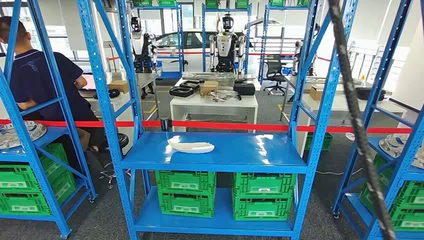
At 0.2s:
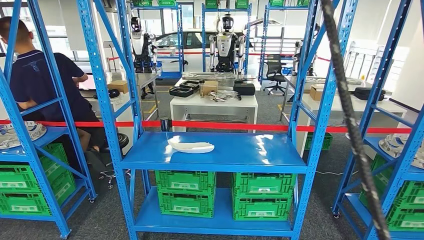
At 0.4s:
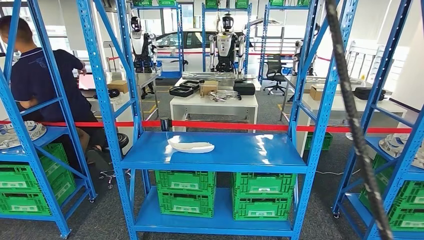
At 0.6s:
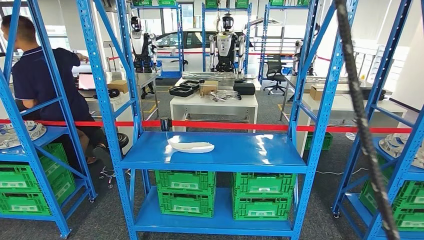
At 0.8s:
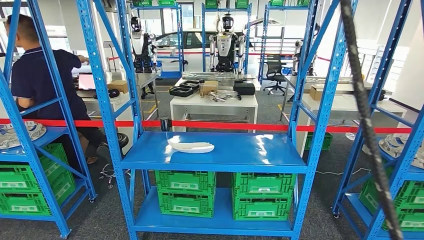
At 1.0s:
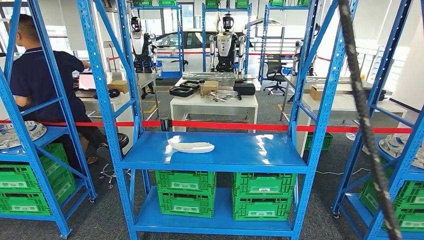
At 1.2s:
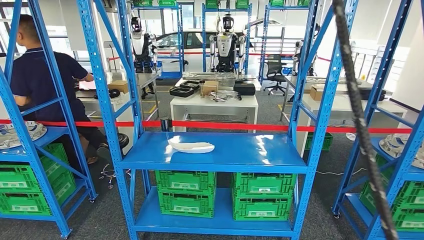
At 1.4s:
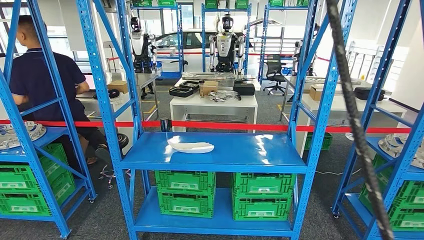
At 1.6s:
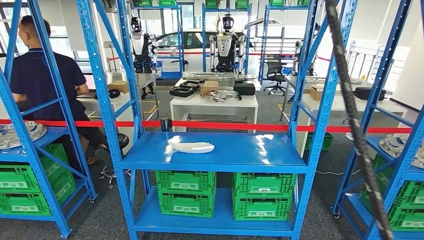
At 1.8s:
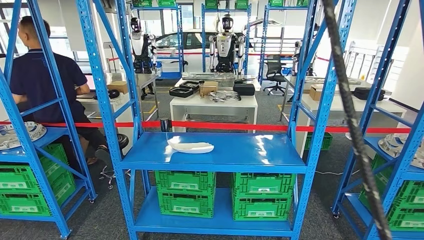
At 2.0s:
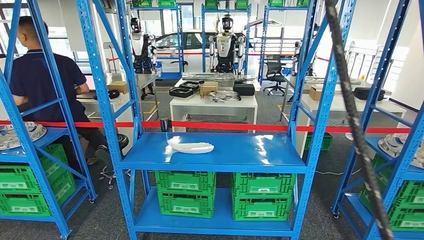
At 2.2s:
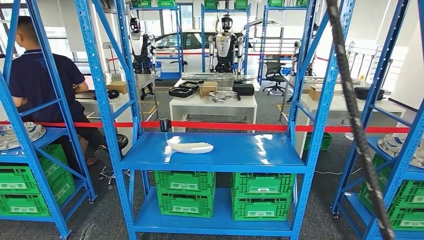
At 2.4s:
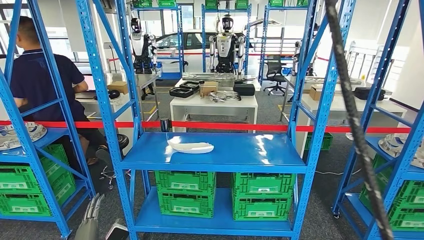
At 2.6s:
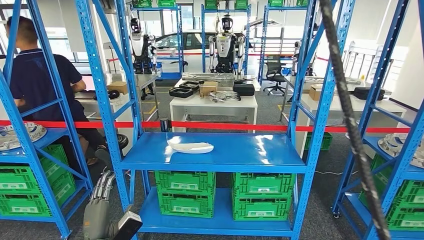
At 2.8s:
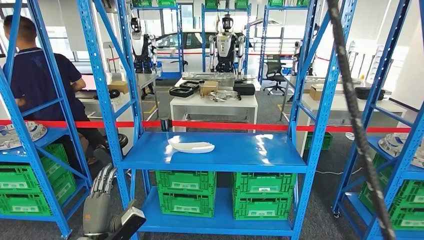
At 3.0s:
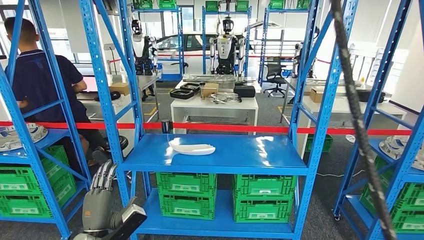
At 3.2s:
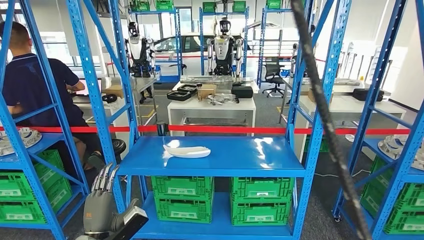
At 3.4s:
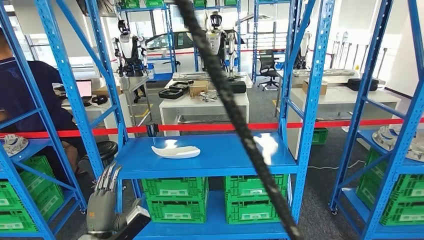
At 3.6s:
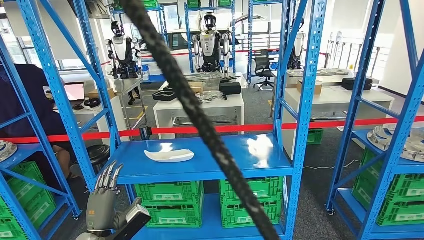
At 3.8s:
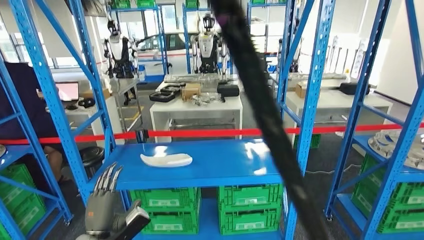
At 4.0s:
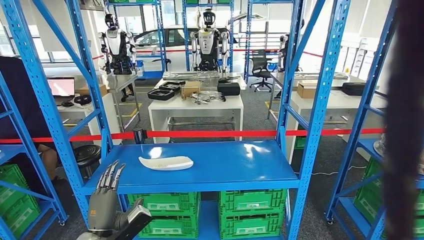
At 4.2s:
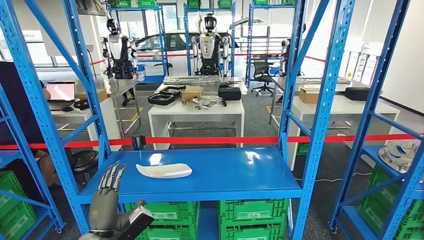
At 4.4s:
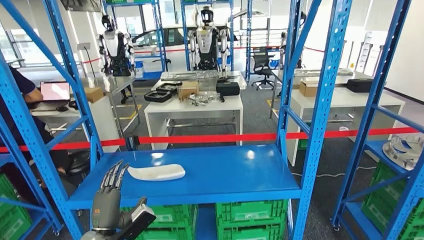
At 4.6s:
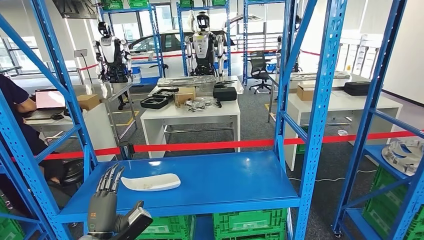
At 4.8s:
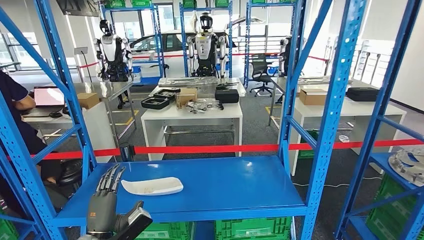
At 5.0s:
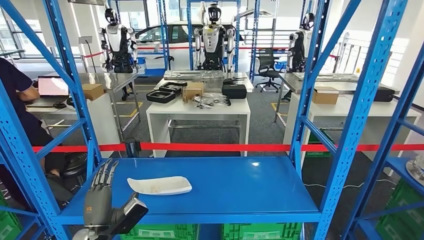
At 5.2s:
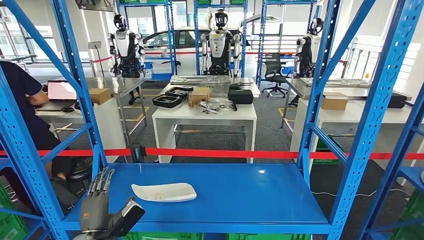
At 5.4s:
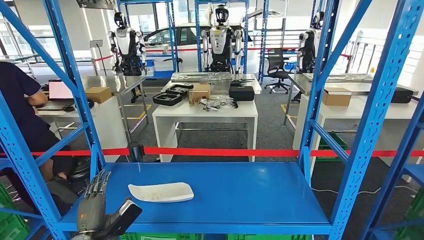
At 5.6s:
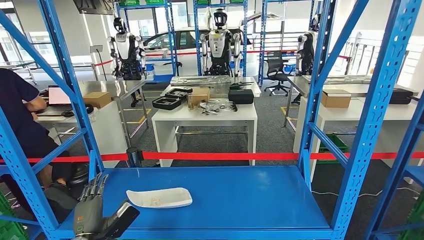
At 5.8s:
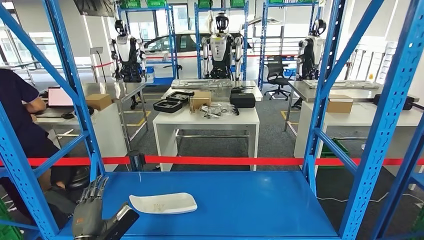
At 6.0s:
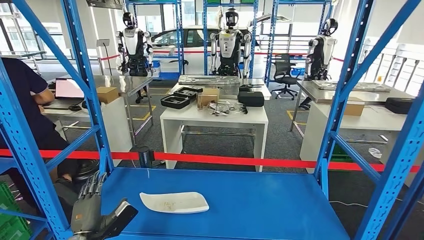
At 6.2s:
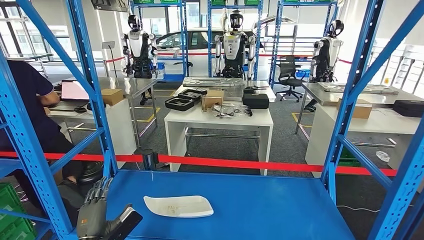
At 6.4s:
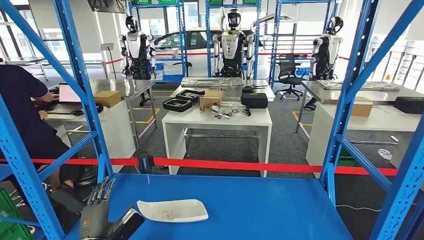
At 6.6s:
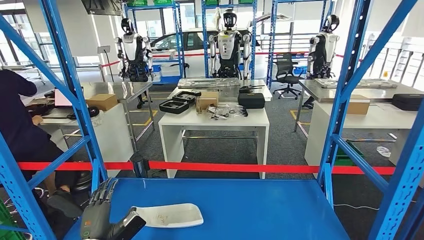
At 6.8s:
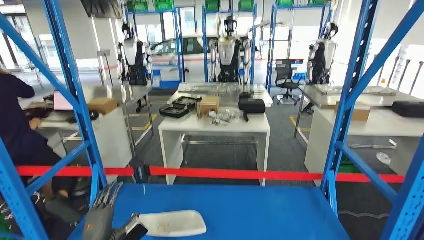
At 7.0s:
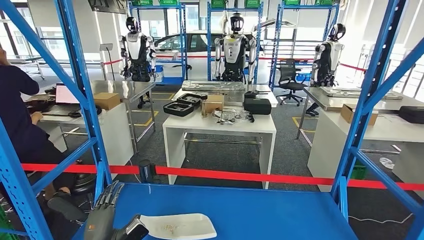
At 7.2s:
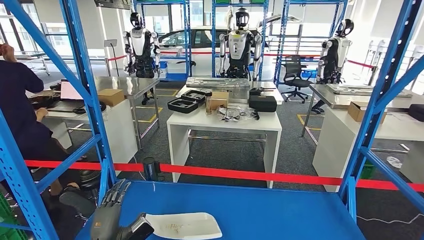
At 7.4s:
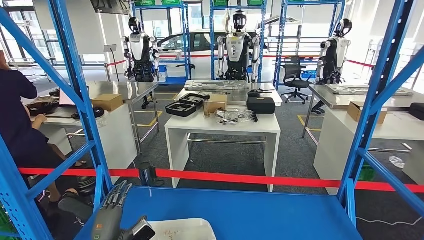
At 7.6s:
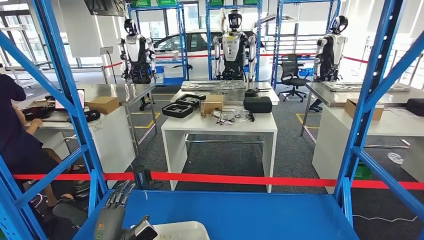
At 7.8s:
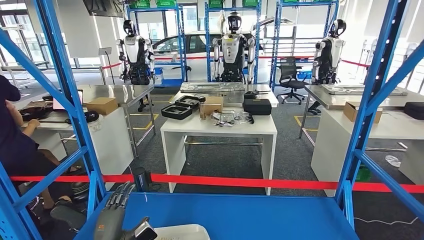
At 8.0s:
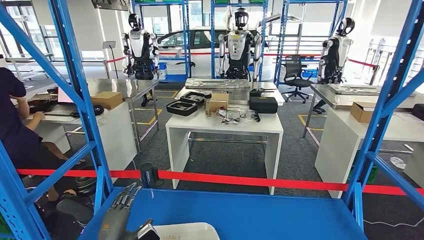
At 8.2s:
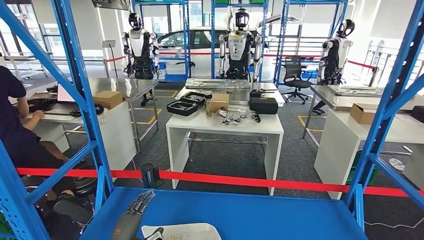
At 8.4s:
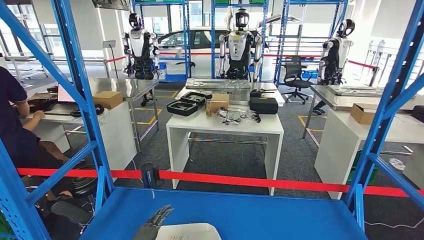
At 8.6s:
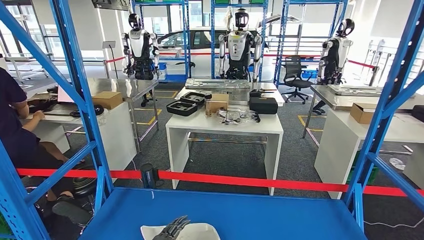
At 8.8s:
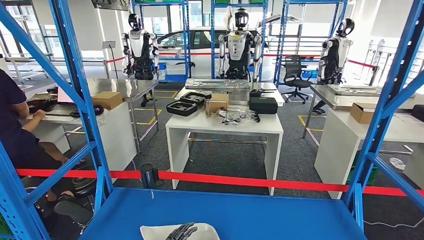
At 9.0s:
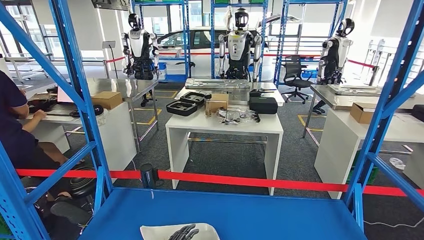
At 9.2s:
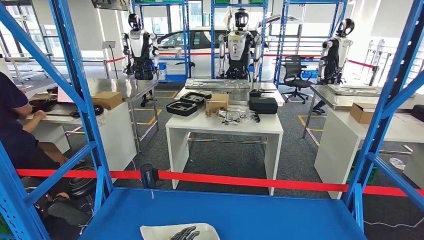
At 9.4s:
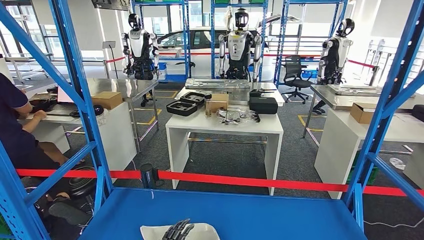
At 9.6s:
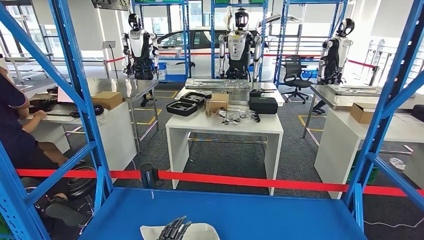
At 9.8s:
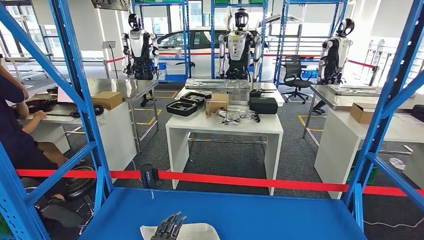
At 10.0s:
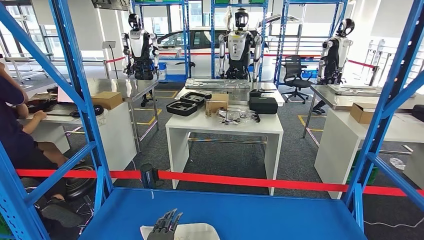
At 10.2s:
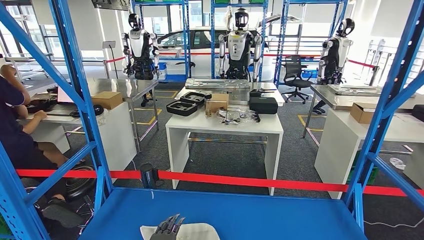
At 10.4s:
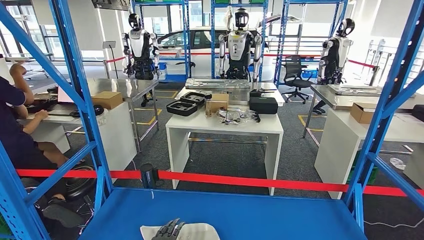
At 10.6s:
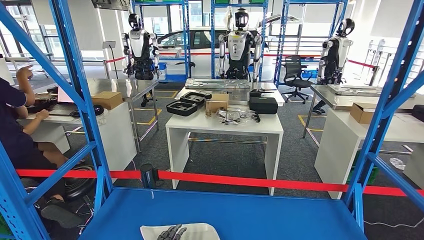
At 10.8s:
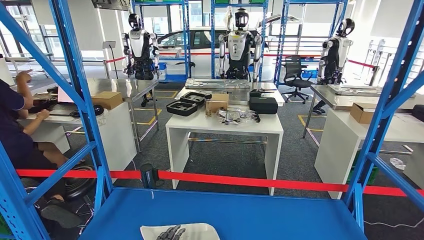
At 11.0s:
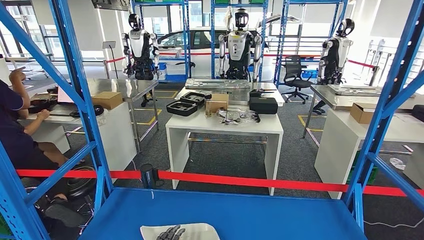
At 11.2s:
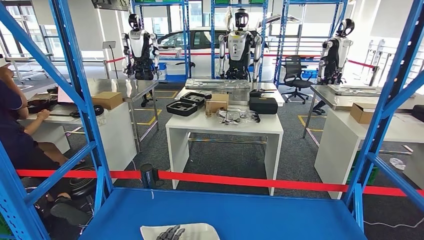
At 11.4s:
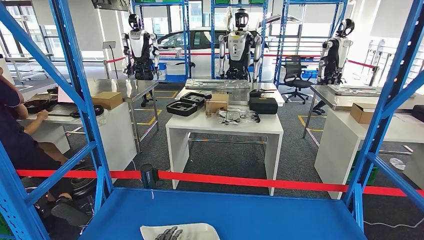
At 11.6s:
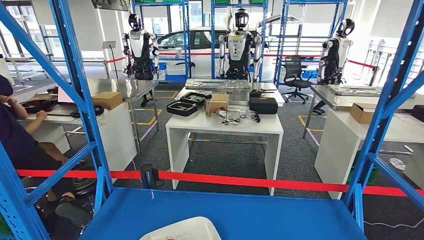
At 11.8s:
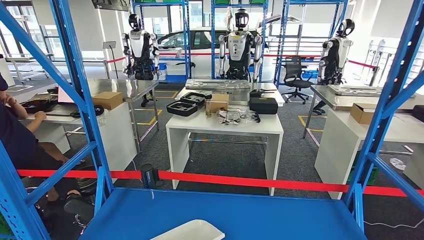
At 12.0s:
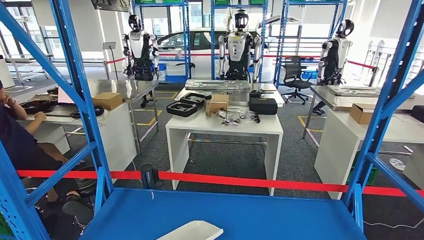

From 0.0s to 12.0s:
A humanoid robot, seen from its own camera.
From 10.4s to 12.0s: The hands move only a little.

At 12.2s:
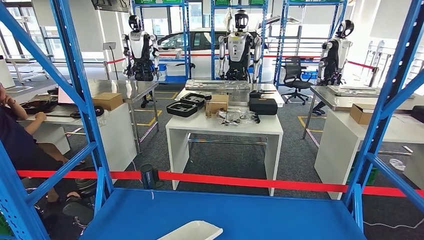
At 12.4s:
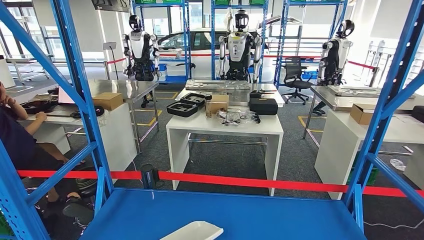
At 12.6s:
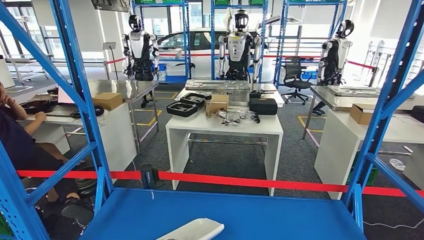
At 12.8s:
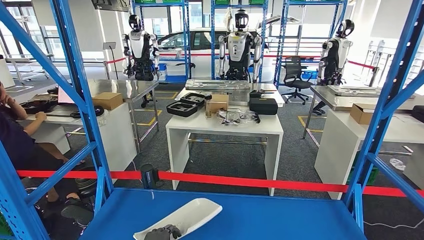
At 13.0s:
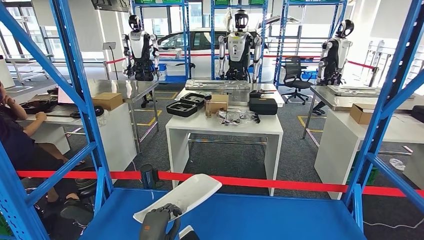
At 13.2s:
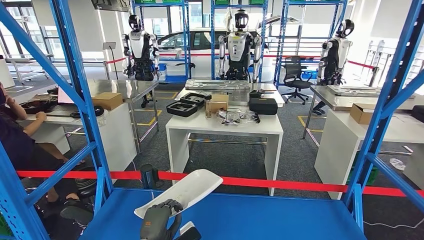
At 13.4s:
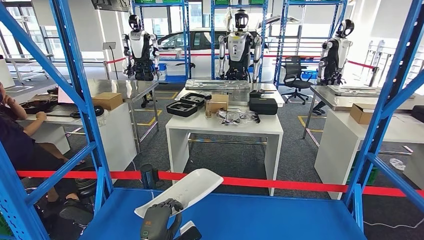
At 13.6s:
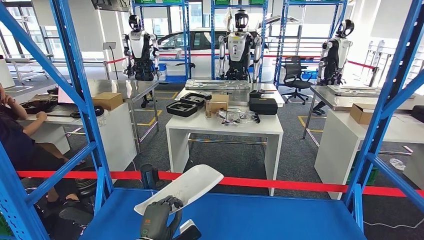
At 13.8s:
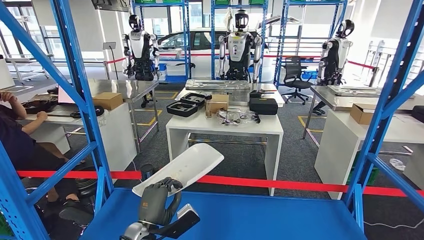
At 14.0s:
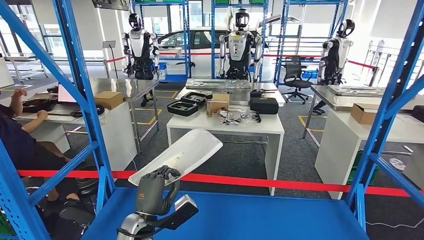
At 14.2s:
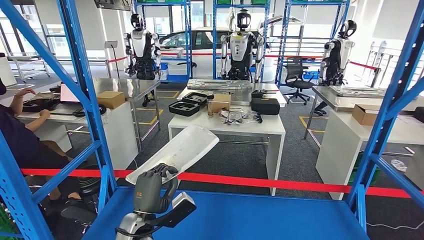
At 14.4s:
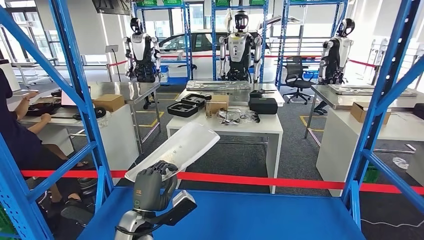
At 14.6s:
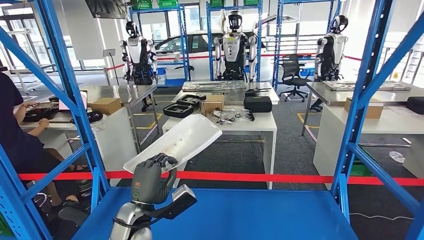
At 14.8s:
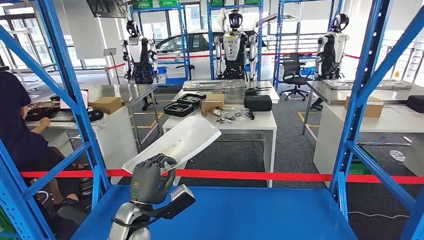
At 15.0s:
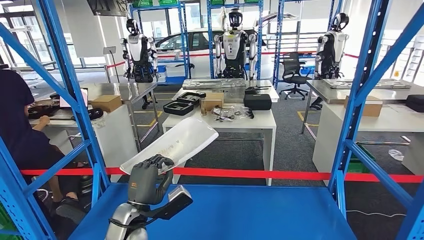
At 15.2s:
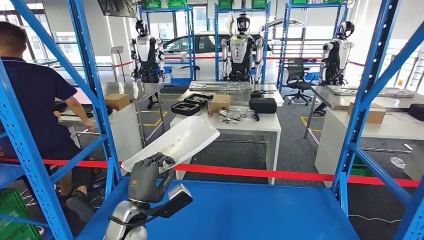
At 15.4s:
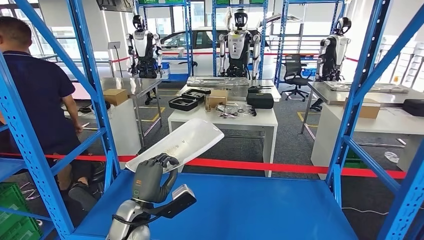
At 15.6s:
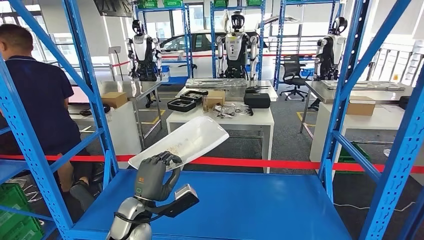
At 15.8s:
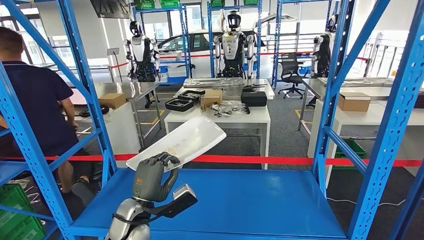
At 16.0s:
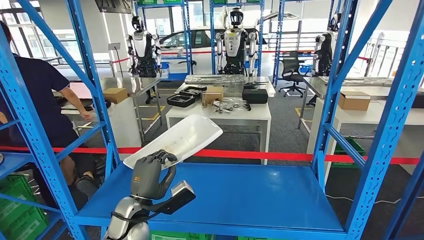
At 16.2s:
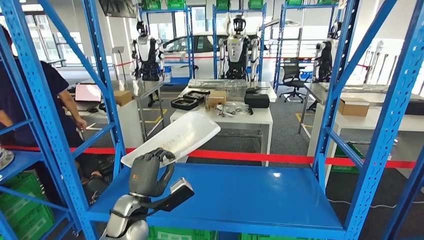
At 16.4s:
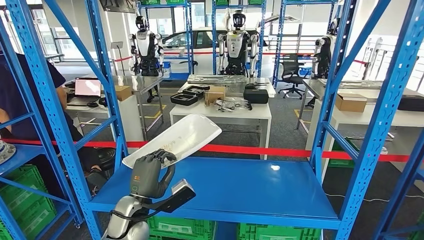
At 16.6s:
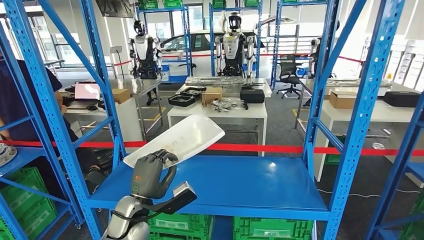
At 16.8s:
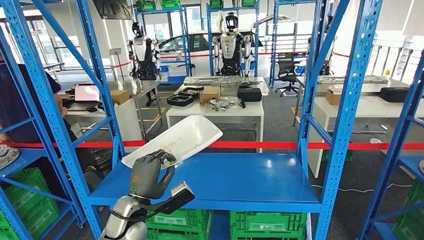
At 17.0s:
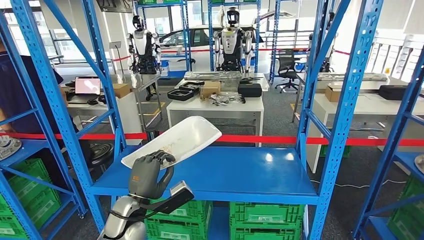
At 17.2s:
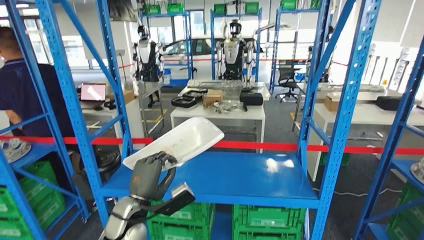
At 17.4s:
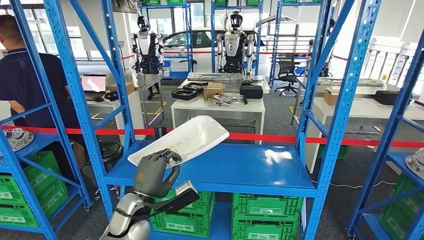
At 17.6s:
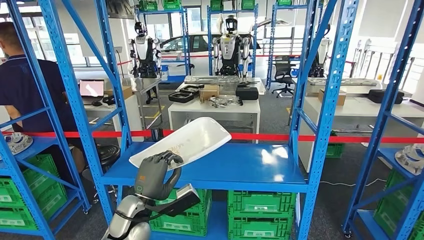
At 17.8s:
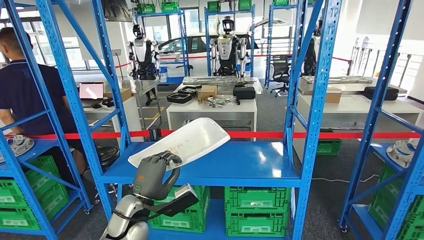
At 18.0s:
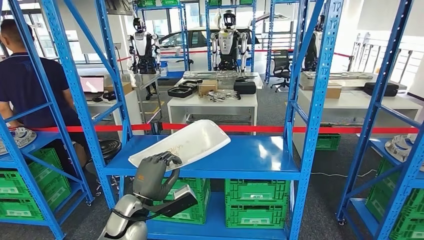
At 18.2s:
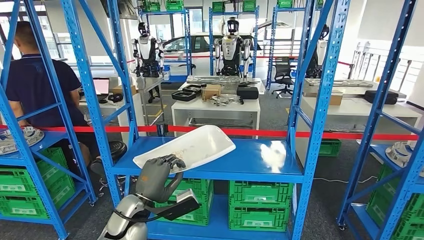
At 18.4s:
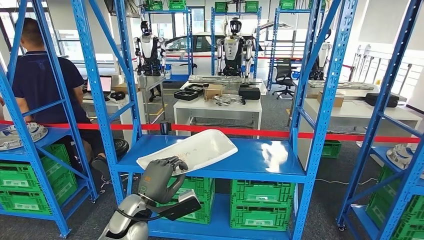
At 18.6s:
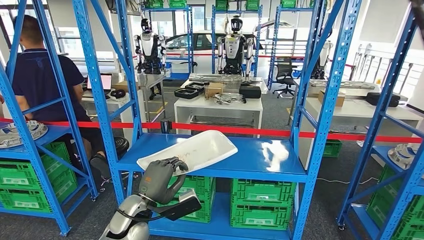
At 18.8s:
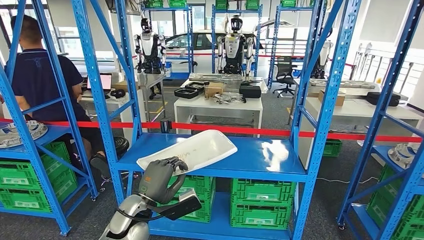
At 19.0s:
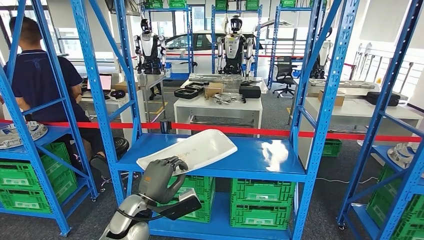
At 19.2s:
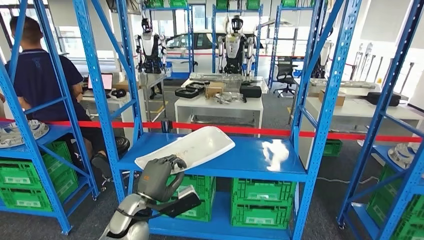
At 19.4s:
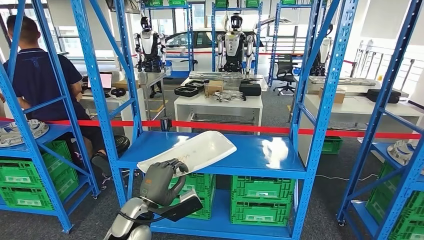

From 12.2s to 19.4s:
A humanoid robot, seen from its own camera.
From 12.2s to 13.6s: The left hand travels upward and forward by about 10 cm.
